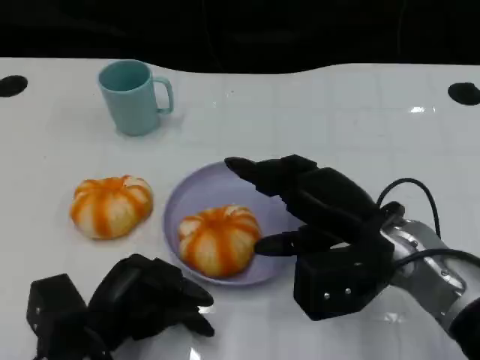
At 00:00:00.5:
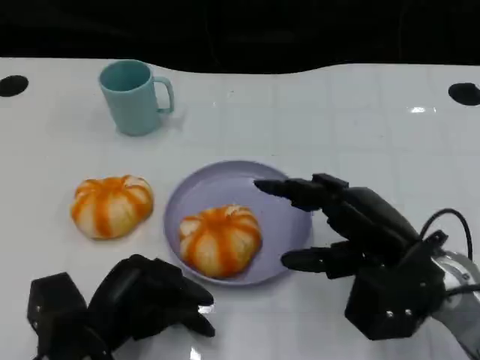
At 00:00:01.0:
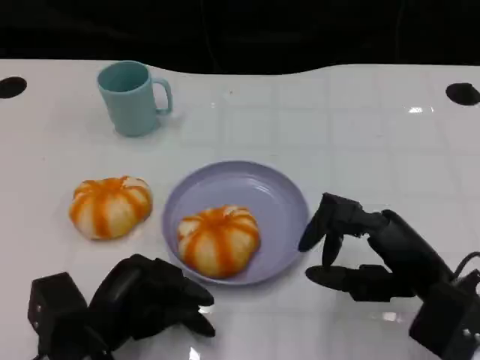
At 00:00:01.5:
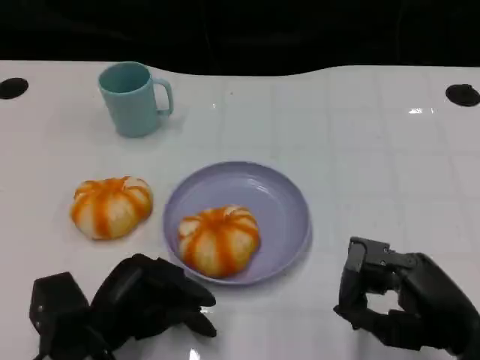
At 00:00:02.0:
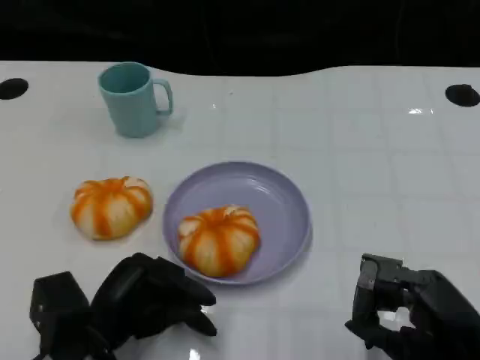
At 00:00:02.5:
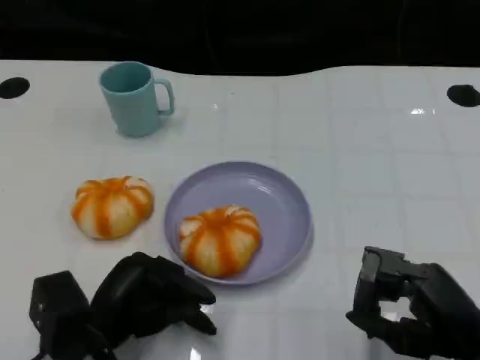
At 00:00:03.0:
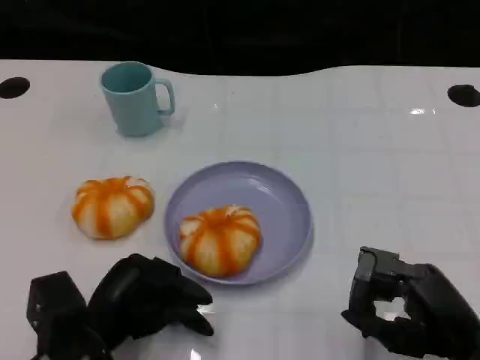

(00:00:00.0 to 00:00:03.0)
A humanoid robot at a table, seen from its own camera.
Task of the whole recording: Grasp the bread from the table and place it into the plate.
00:00:00.0 - 00:00:01.5: The right hand moves backward and to the right, roughly 15 cm.
00:00:01.5 - 00:00:03.0: There are only small adjustments of the hands.
